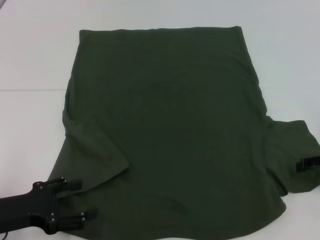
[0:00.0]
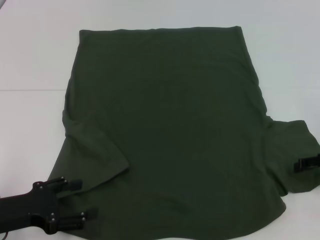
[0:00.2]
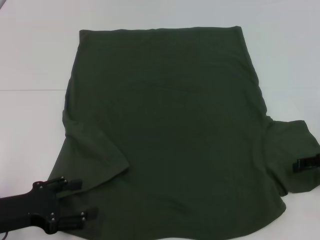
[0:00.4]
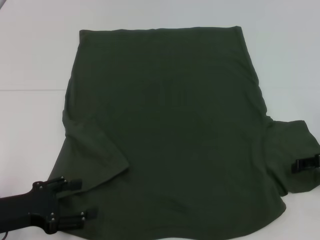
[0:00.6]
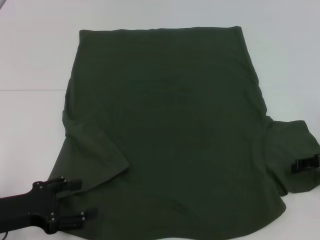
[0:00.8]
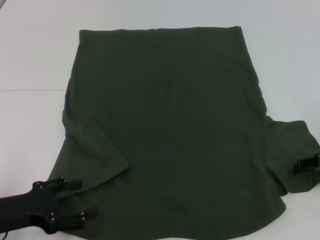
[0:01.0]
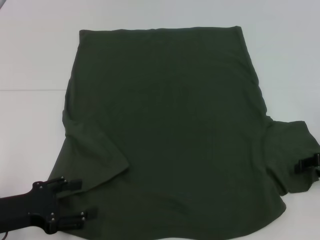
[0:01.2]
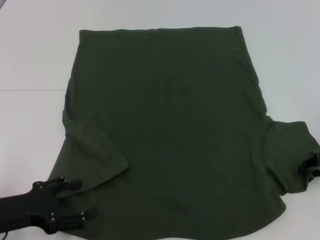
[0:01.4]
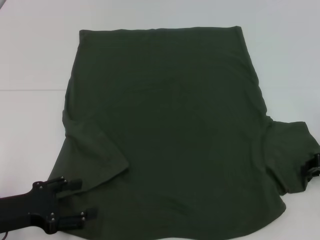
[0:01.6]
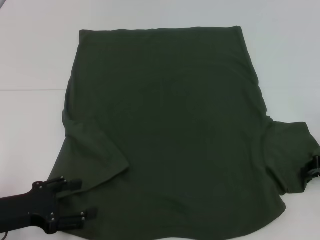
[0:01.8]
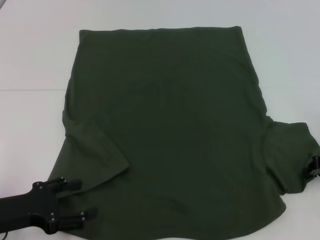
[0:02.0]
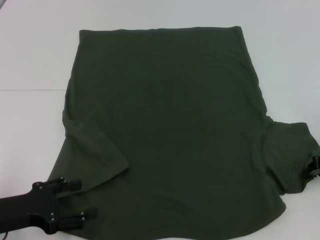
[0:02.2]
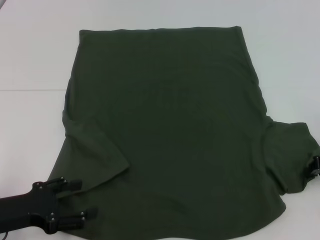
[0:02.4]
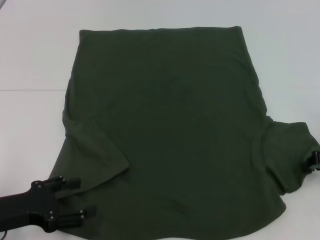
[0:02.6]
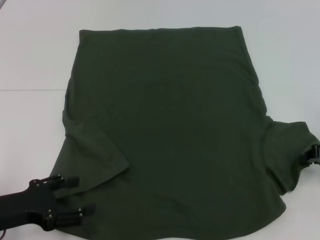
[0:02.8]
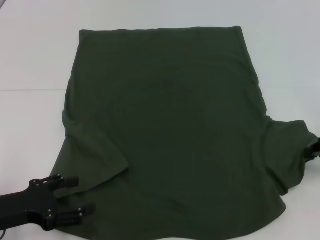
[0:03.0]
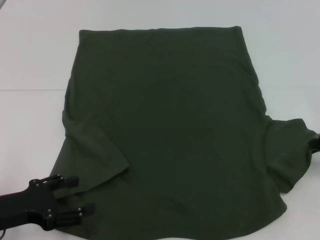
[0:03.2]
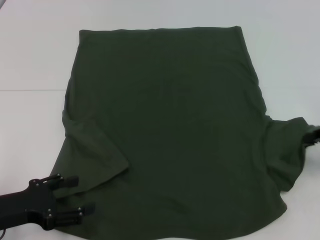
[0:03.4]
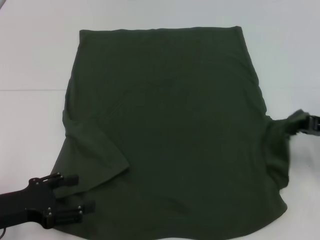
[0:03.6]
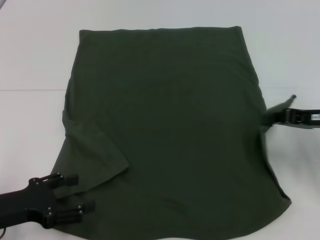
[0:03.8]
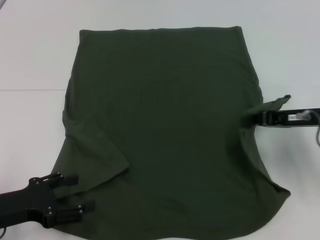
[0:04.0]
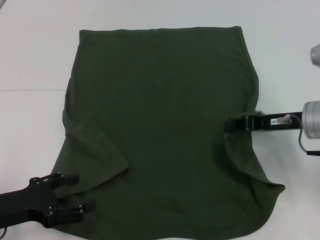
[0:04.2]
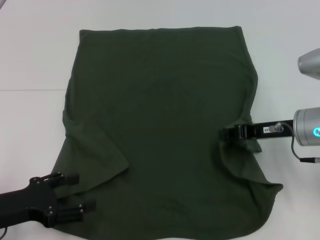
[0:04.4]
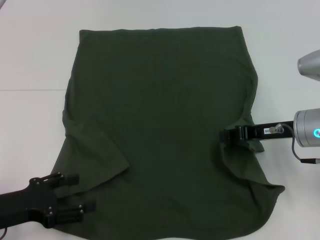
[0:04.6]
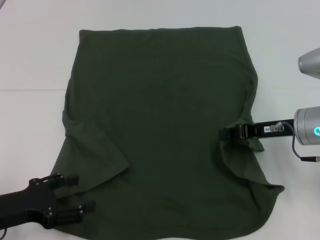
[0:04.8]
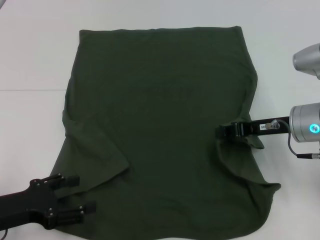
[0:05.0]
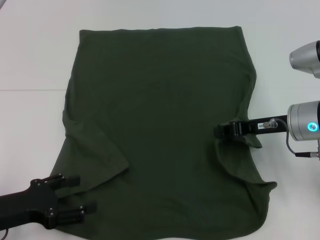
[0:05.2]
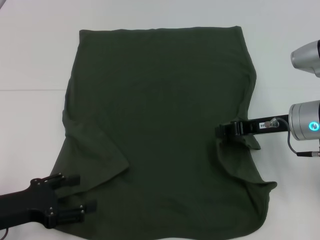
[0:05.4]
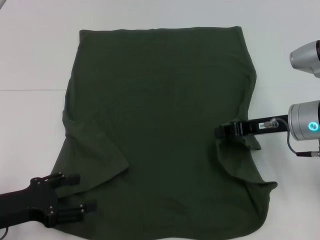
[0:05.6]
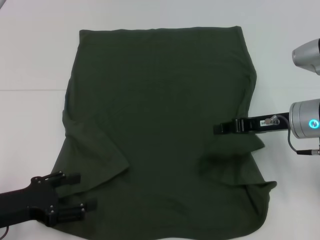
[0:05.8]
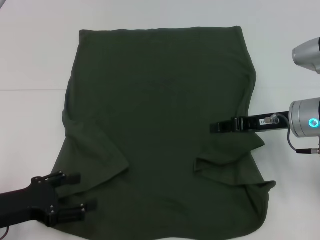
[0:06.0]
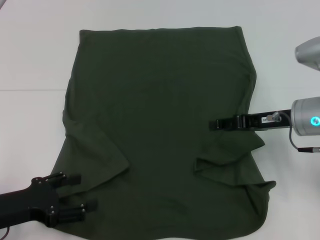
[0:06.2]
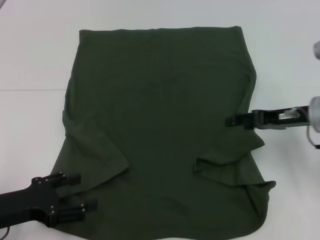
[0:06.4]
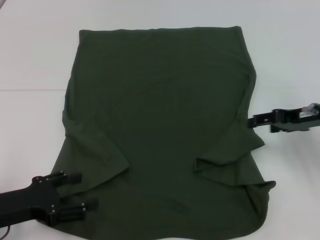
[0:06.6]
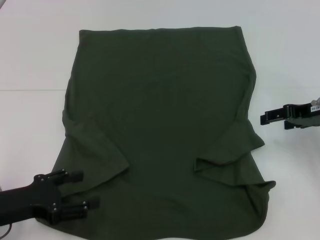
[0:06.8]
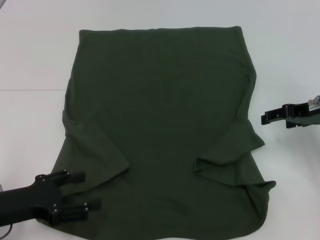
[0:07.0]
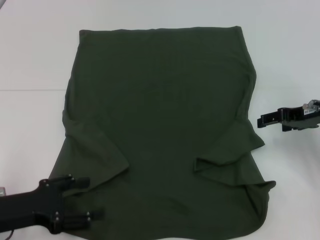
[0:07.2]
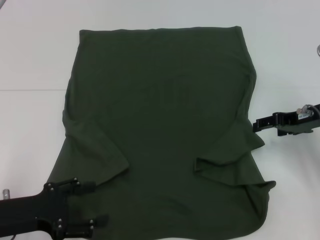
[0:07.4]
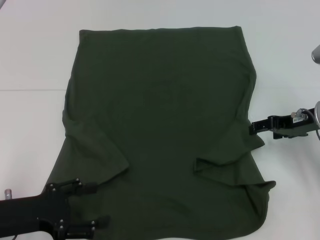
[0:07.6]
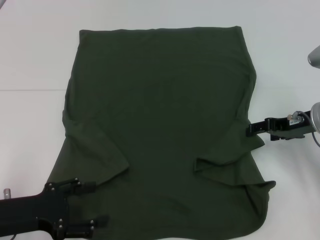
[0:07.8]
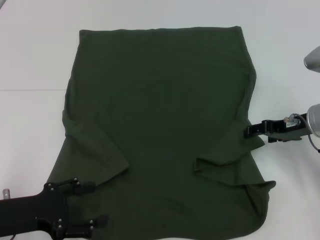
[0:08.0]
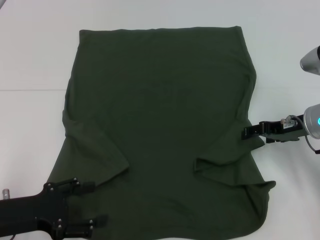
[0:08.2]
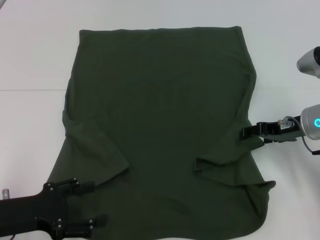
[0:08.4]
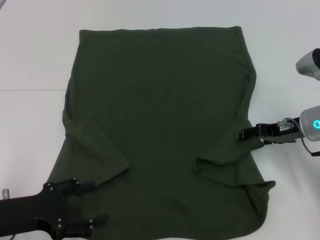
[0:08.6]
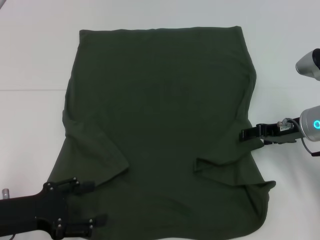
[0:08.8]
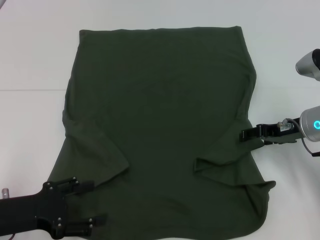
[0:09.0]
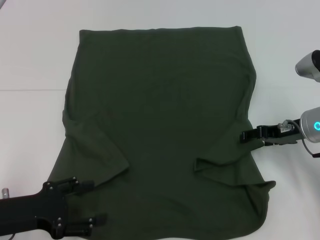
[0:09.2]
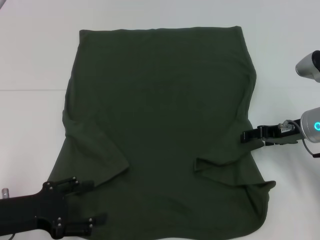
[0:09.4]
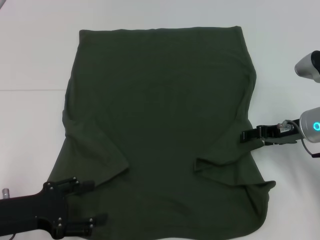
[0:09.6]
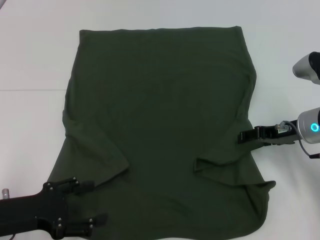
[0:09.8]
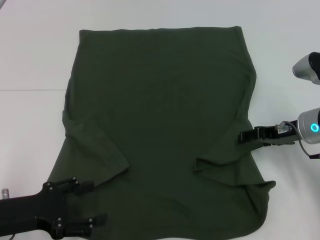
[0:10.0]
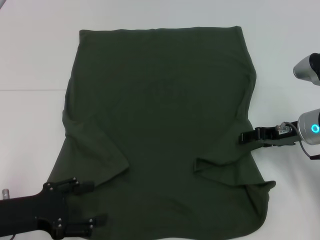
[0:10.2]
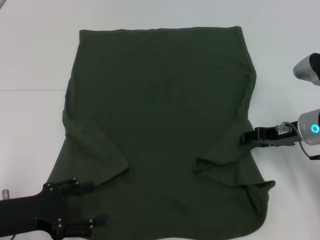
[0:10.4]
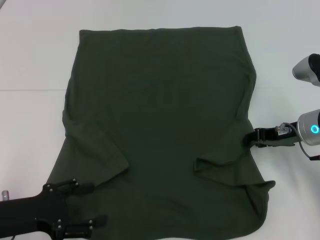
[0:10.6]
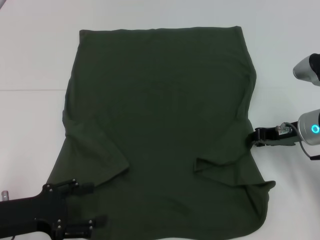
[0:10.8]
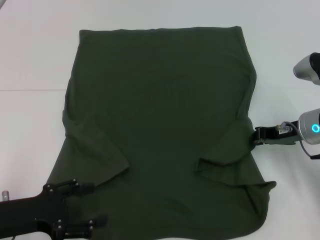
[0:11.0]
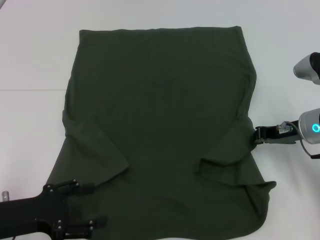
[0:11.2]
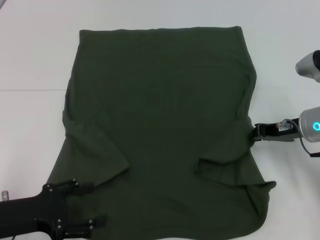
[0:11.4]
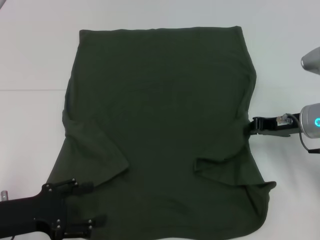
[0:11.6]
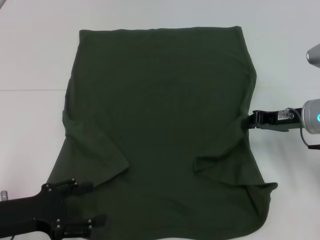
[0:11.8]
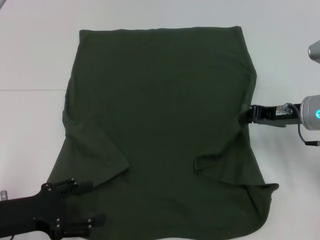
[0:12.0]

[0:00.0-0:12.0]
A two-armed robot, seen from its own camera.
0:01.6 to 0:03.0: The grippers make only small movements.
0:03.0 to 0:04.4: The right gripper heads to the left, covering about 10 cm.
0:04.4 to 0:06.0: Neither gripper changes place.
0:06.0 to 0:07.6: The right gripper opens up.
0:07.6 to 0:09.0: The grippers make only small movements.
0:09.0 to 0:10.4: The two grippers keep their place.
0:10.4 to 0:12.0: The right gripper closes its fingers.

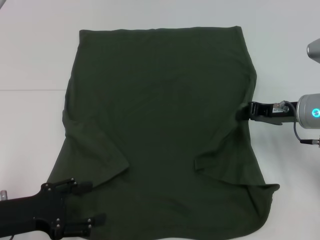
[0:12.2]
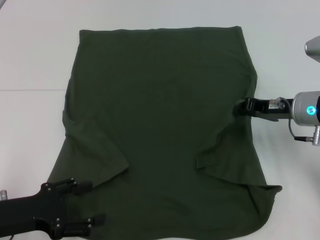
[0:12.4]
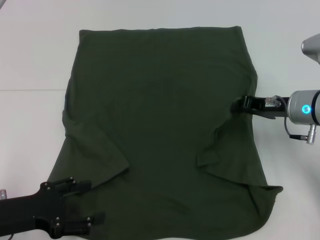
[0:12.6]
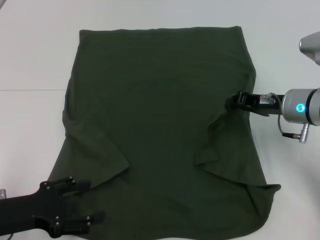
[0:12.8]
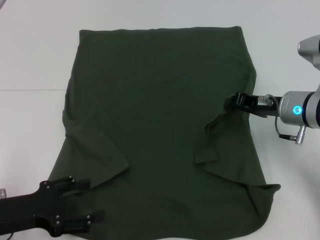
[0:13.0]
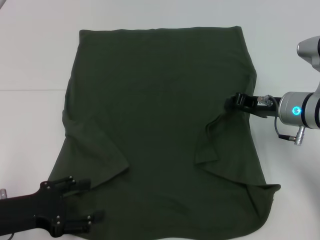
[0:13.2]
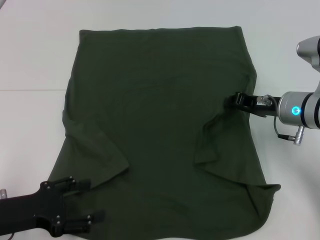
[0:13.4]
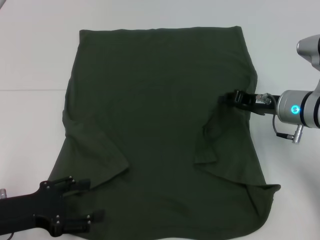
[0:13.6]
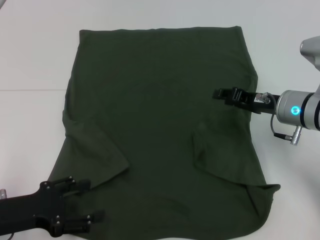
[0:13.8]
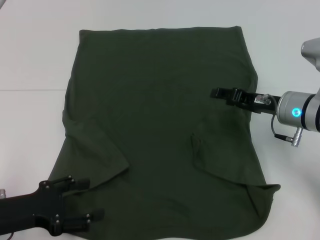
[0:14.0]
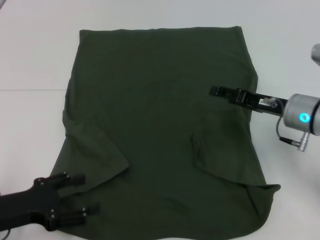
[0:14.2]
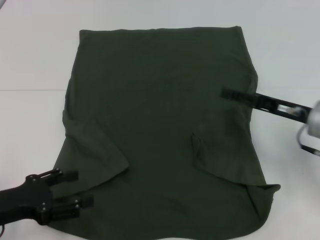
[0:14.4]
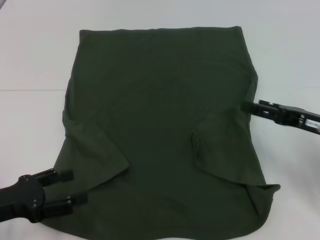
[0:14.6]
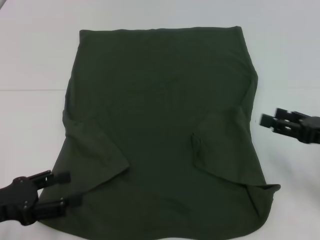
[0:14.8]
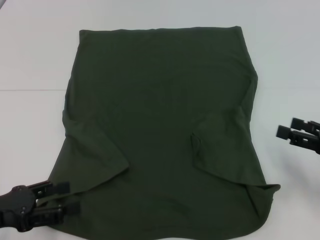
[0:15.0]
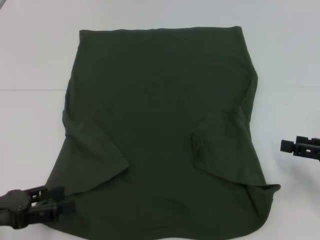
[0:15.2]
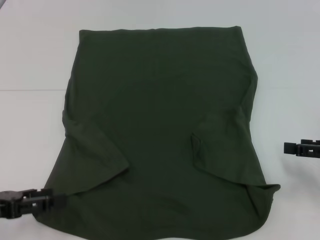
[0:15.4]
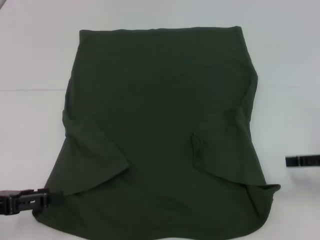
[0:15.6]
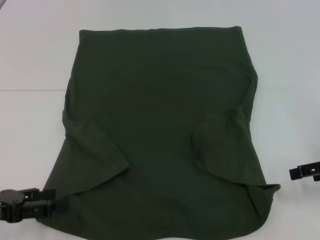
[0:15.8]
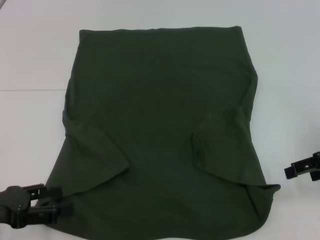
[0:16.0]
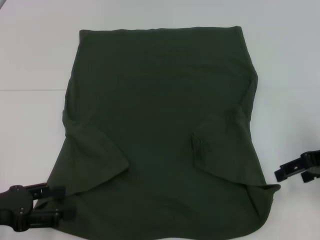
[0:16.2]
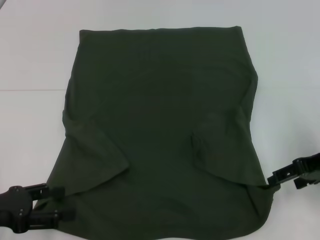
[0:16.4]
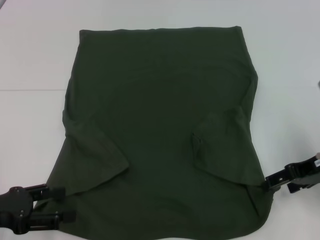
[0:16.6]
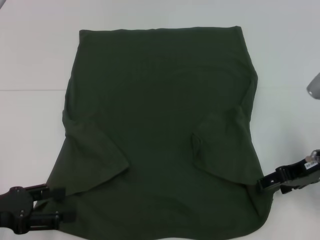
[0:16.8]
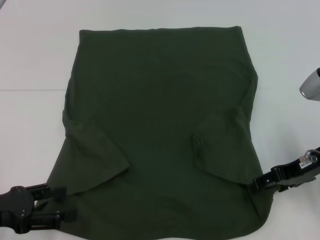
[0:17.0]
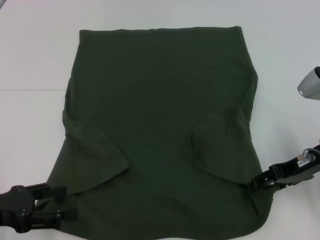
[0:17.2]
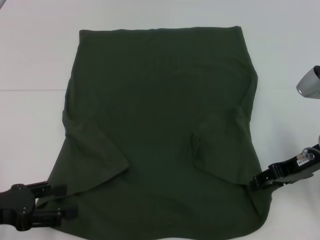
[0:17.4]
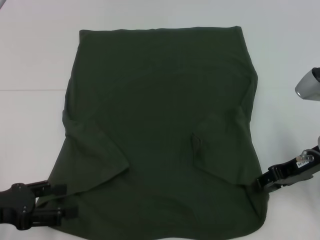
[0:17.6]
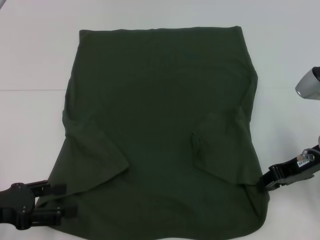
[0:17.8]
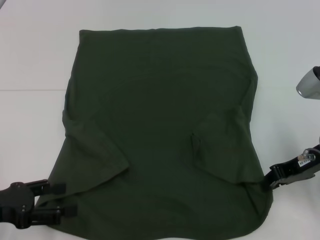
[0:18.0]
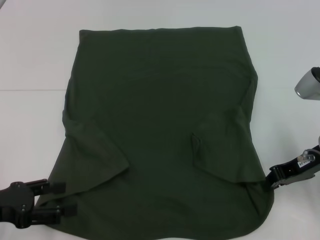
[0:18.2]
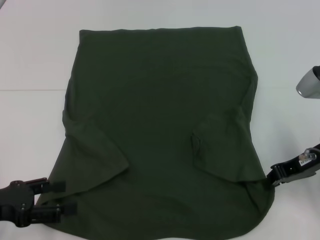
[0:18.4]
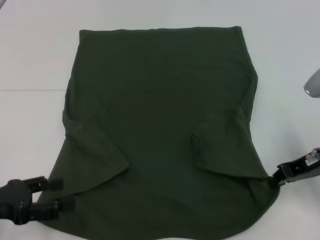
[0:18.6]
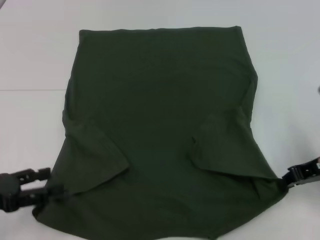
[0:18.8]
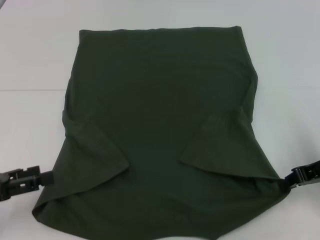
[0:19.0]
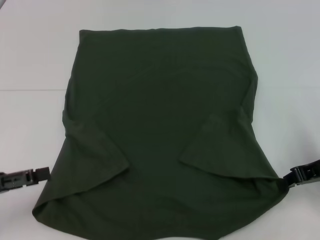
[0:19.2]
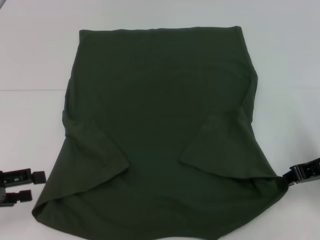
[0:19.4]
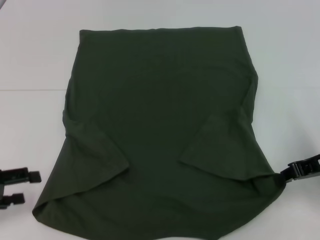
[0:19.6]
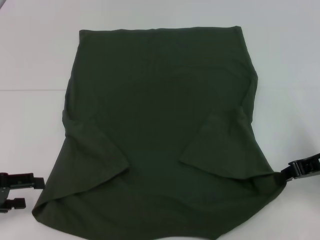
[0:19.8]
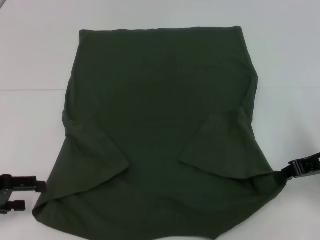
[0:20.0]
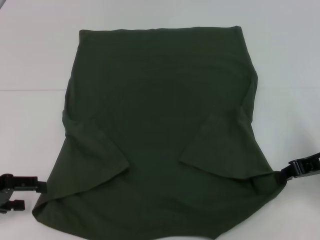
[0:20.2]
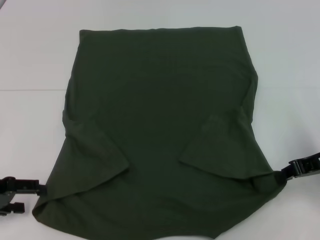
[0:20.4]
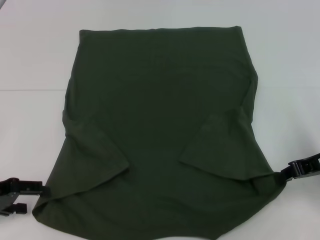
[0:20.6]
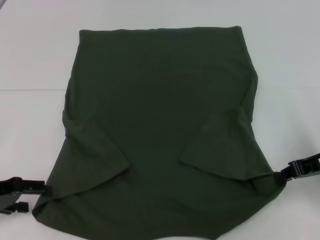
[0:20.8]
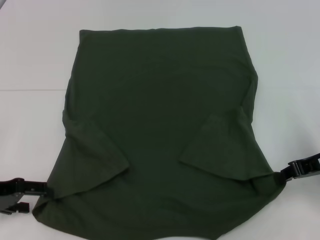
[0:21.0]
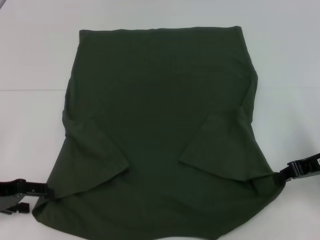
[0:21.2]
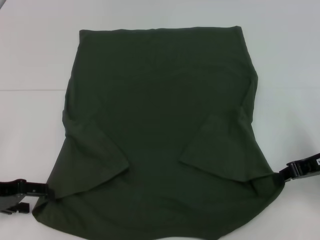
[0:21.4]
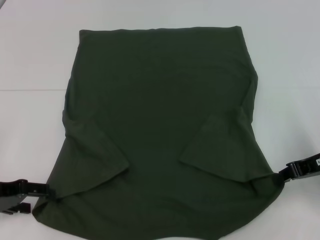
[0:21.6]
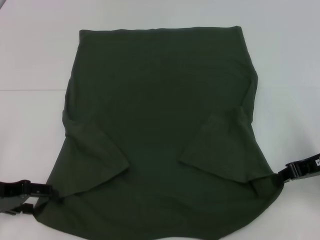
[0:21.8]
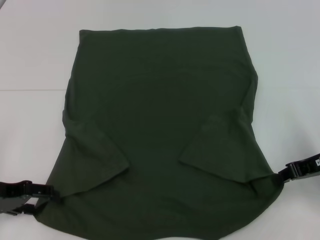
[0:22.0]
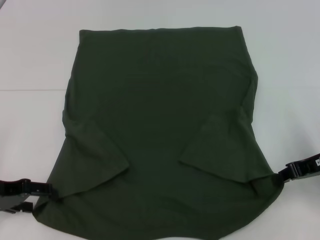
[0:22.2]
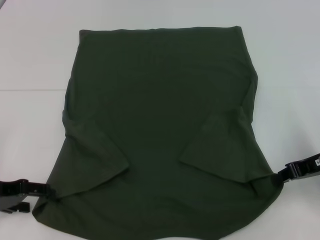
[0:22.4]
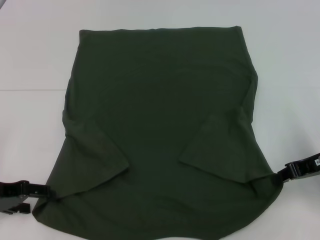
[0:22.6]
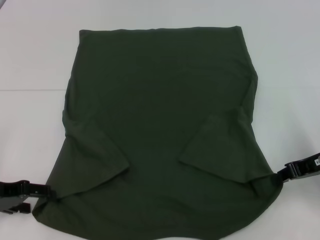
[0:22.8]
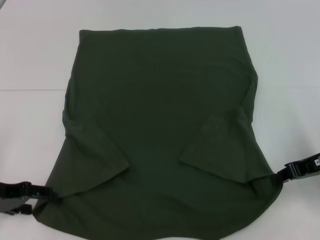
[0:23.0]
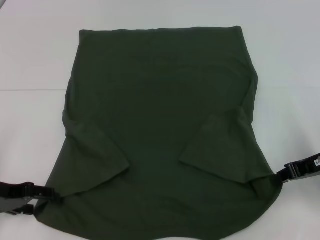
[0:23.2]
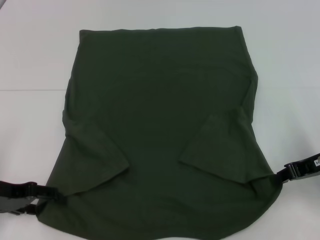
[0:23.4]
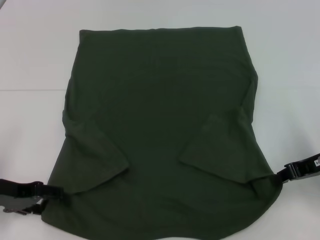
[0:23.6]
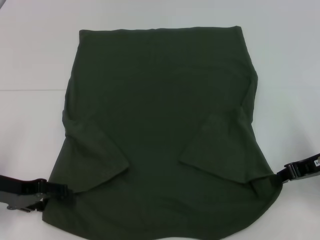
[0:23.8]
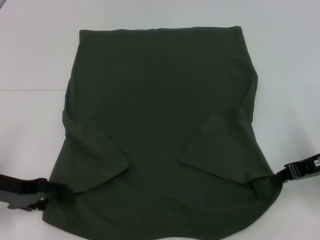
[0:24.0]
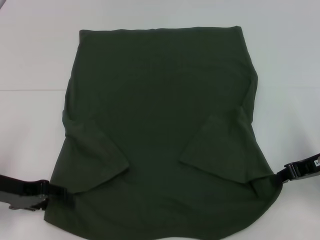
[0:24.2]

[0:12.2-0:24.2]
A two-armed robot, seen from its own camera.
Step, 0:14.2 to 0:19.6: Grab the bottom right corner with your right hand.
0:12.2 to 0:13.8: The right gripper opens its fingers.
0:13.8 to 0:15.2: The right gripper shifts some 15 cm to the right and backward, and opens its fingers.
0:15.2 to 0:16.6: The right gripper heads to the left and forward, covering some 10 cm.
0:16.6 to 0:18.2: The right gripper closes its fingers.
0:19.8 to 0:21.2: The grippers stay close to where they were, moving slightly.
0:21.2 to 0:22.6: The two grippers keep their place.
0:22.6 to 0:24.2: The grippers stay close to where they were, moving slightly.
